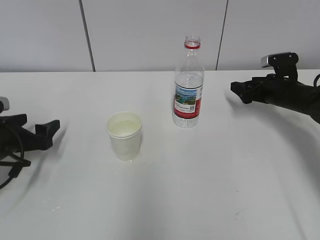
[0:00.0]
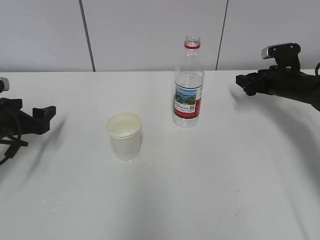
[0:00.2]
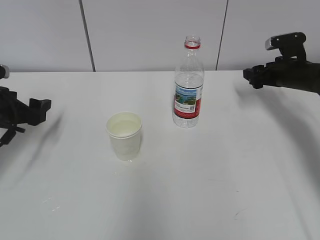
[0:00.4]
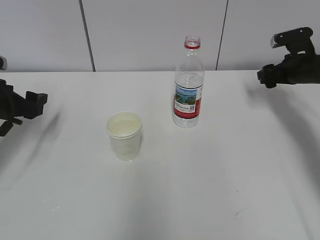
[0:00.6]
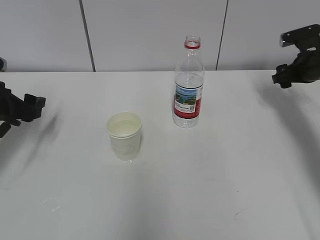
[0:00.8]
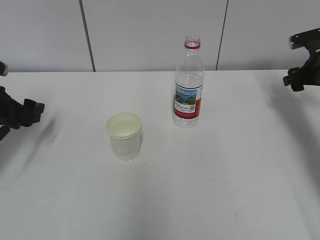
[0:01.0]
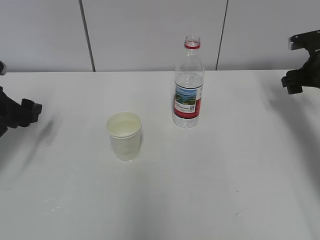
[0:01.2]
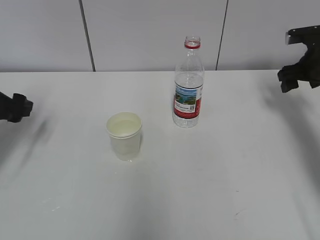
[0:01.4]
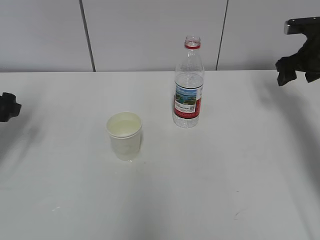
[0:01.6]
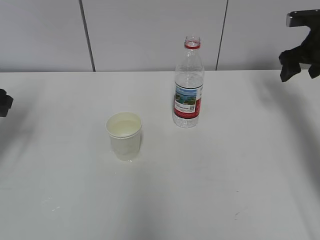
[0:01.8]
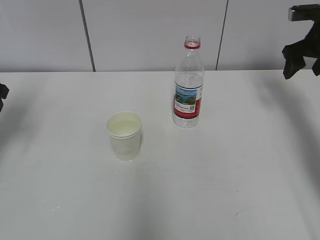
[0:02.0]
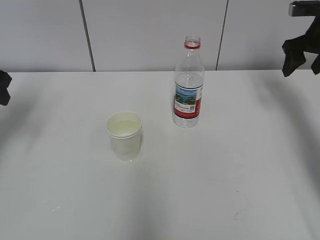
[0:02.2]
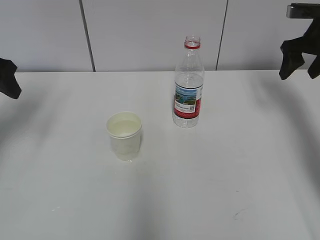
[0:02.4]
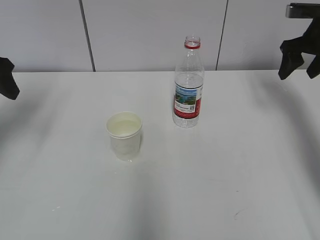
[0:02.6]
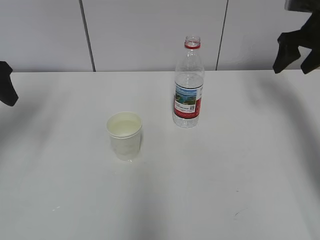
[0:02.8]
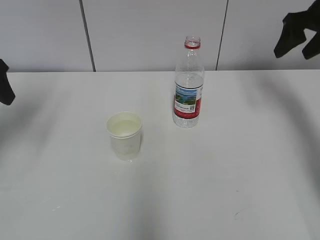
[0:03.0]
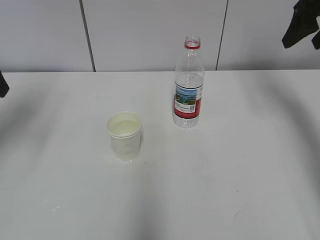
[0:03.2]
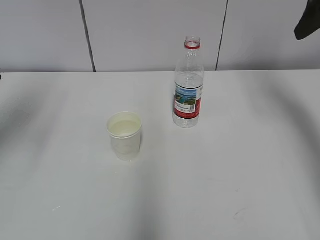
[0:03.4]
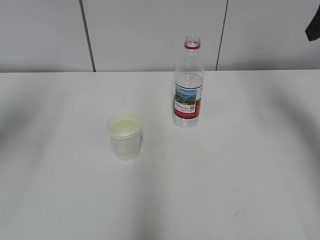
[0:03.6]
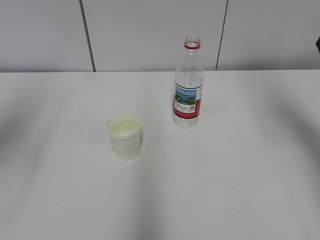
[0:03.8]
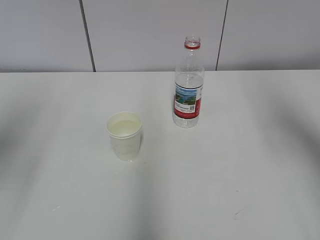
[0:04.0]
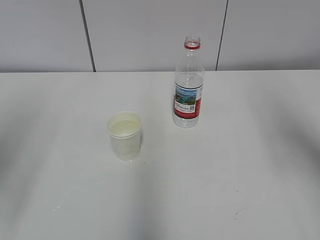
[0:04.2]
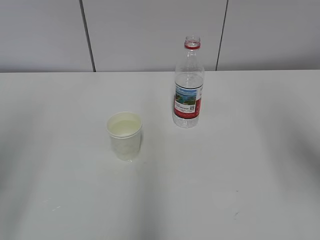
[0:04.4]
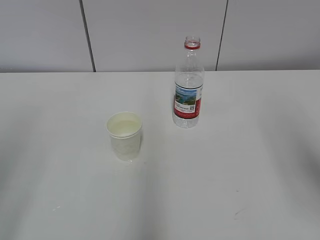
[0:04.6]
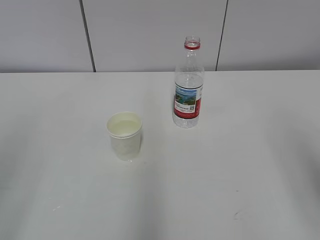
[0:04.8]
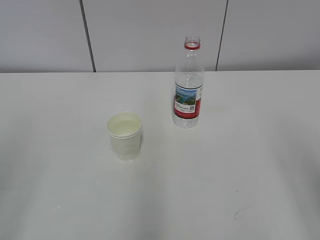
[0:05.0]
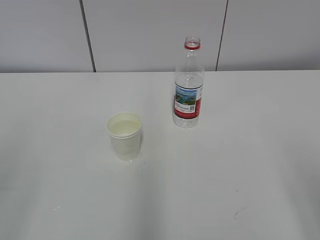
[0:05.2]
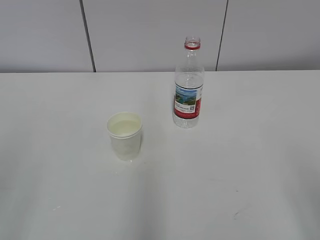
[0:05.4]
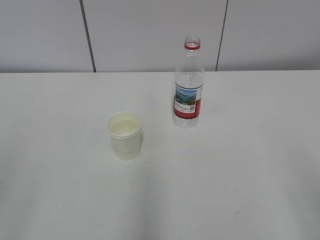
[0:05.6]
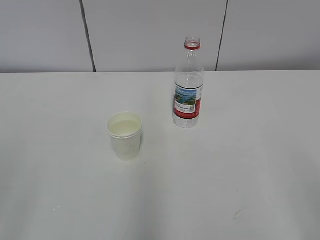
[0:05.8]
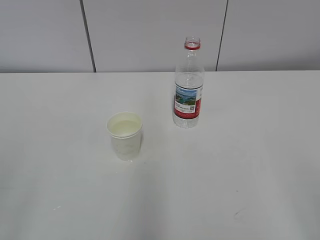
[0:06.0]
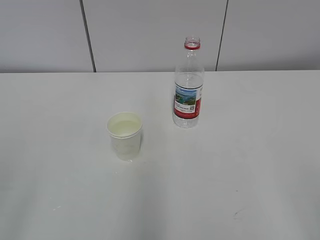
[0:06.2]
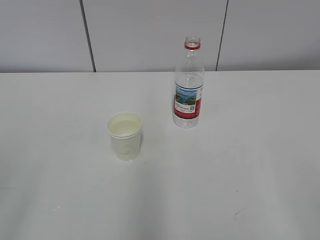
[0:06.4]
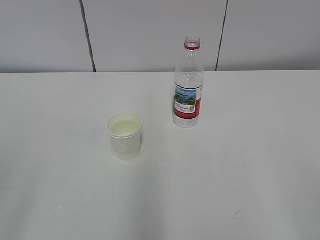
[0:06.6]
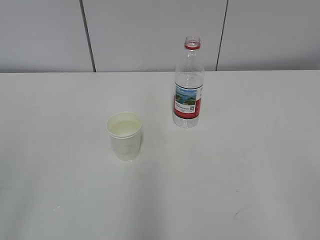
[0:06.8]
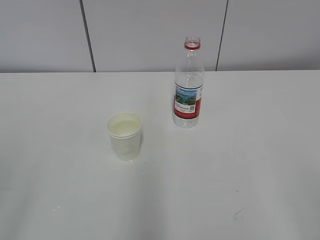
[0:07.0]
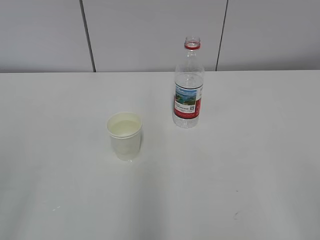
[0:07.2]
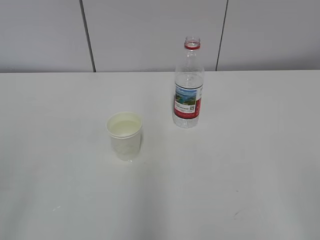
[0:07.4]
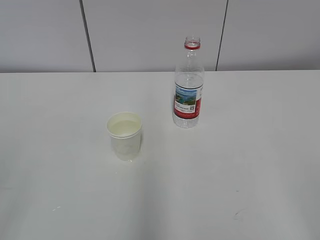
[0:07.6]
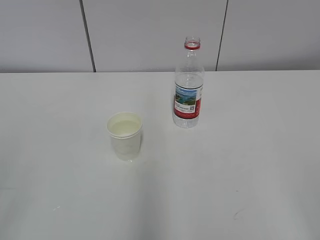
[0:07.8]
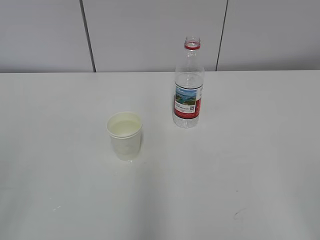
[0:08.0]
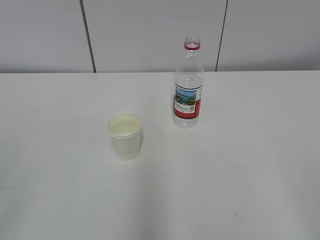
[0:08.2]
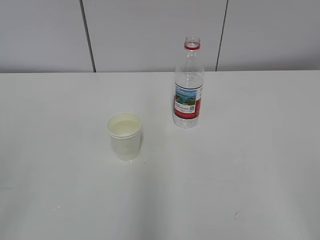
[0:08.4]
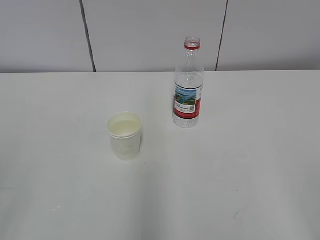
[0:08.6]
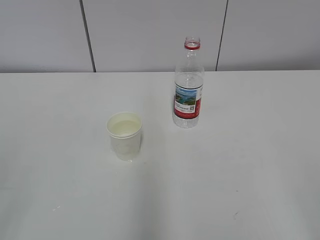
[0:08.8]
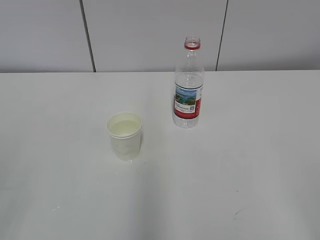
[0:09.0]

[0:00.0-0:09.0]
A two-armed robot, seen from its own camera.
0:00.0 to 0:01.6: Both grippers travel together upward, approximately 10 cm.
0:01.6 to 0:03.0: Both grippers move upward, about 10 cm.
0:03.0 to 0:04.4: The two grippers go about 25 cm backward.
0:04.4 to 0:06.0: The right gripper moves backward and downward, approximately 20 cm.
0:07.6 to 0:09.0: Neither gripper changes place.
